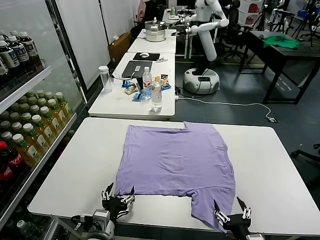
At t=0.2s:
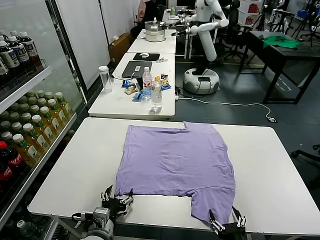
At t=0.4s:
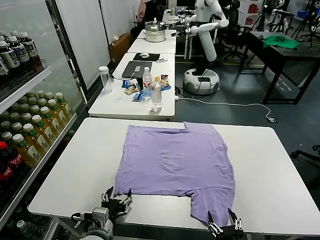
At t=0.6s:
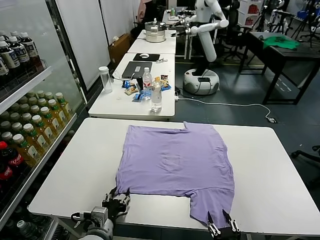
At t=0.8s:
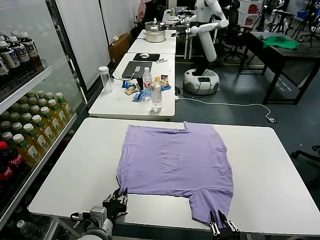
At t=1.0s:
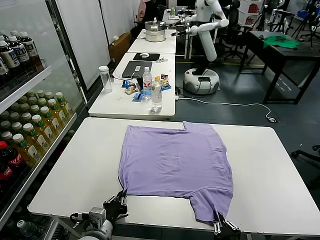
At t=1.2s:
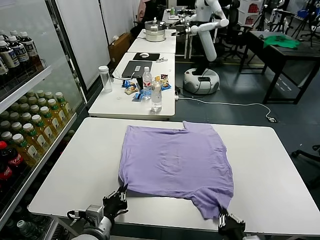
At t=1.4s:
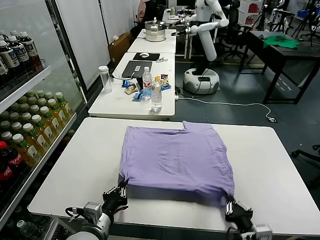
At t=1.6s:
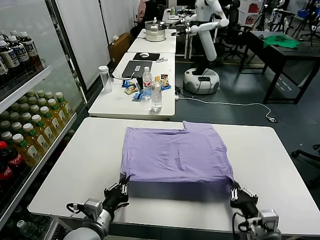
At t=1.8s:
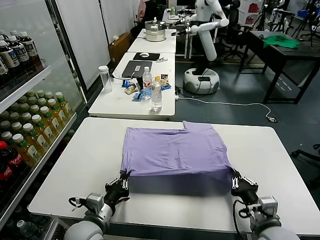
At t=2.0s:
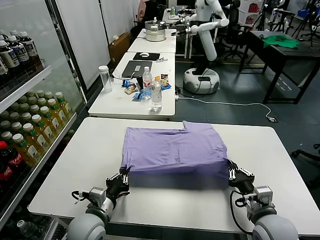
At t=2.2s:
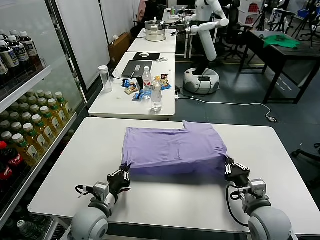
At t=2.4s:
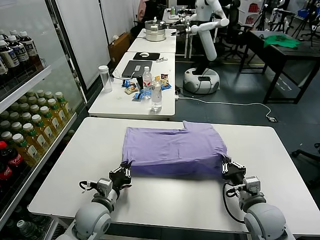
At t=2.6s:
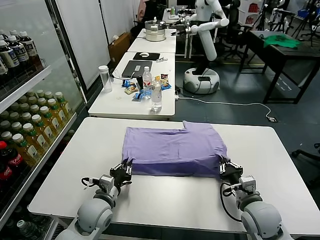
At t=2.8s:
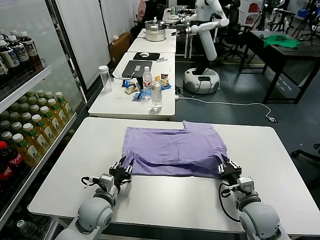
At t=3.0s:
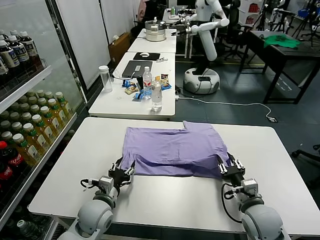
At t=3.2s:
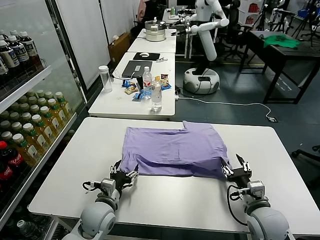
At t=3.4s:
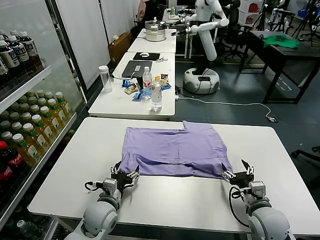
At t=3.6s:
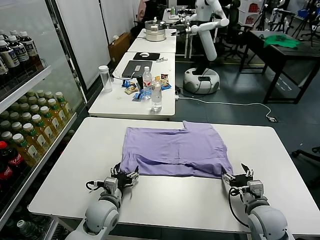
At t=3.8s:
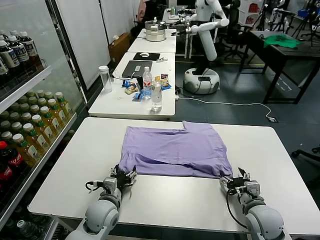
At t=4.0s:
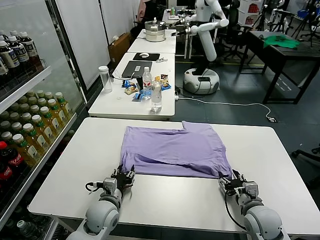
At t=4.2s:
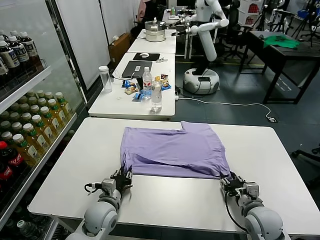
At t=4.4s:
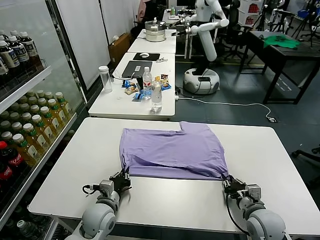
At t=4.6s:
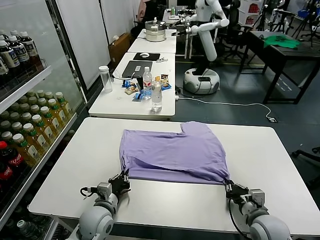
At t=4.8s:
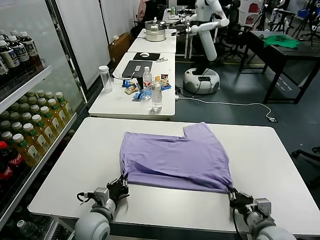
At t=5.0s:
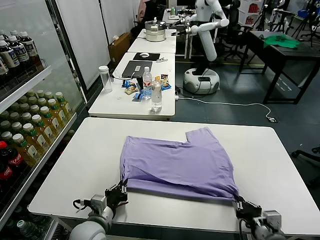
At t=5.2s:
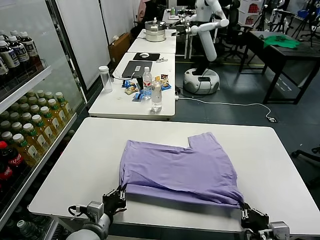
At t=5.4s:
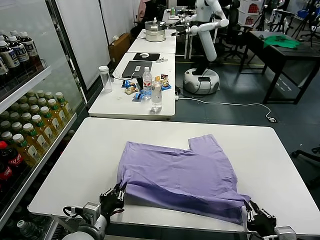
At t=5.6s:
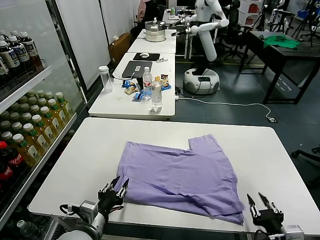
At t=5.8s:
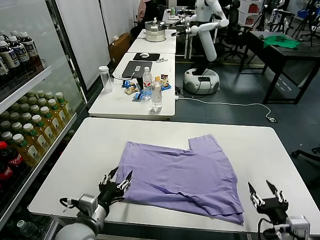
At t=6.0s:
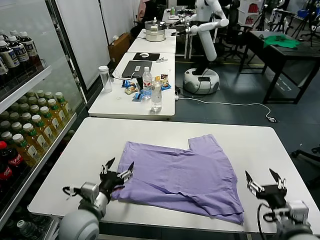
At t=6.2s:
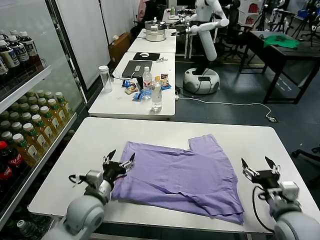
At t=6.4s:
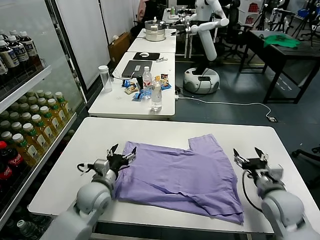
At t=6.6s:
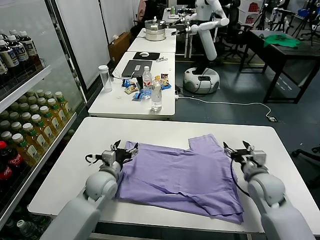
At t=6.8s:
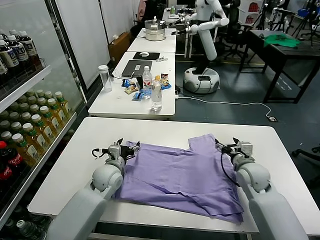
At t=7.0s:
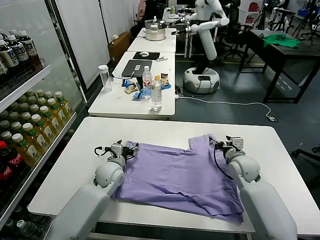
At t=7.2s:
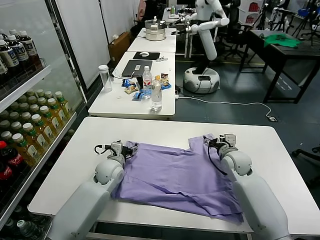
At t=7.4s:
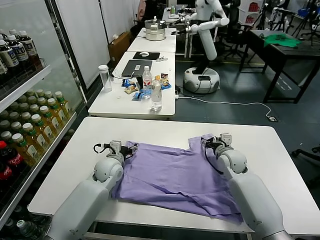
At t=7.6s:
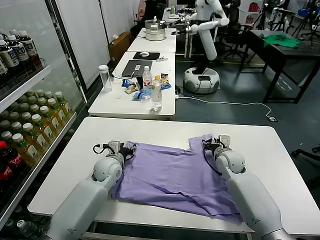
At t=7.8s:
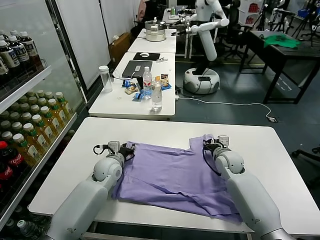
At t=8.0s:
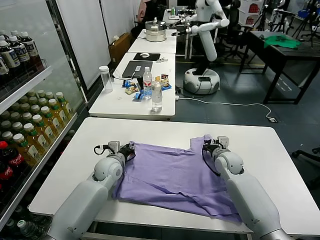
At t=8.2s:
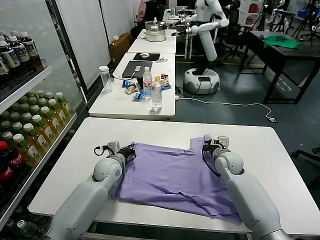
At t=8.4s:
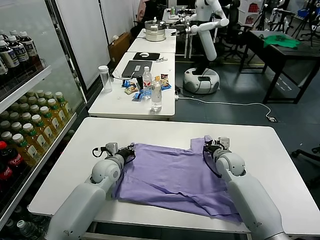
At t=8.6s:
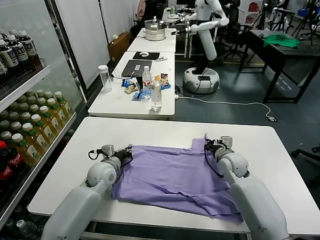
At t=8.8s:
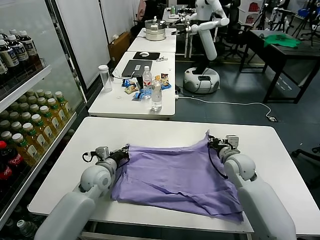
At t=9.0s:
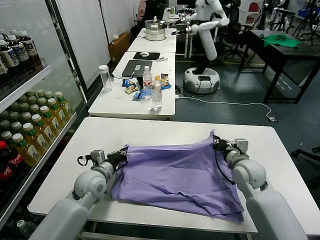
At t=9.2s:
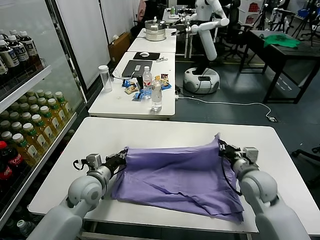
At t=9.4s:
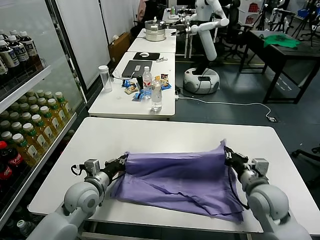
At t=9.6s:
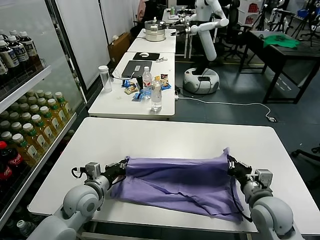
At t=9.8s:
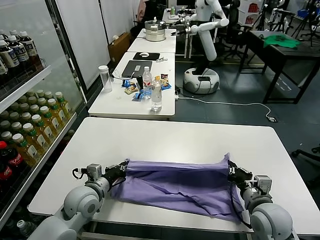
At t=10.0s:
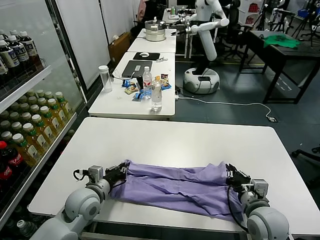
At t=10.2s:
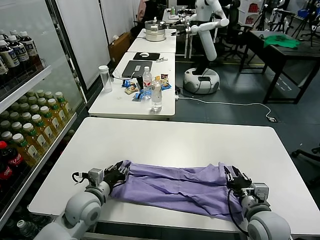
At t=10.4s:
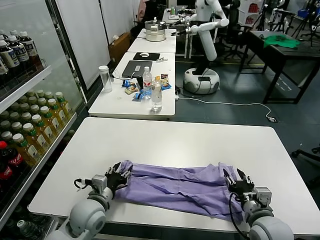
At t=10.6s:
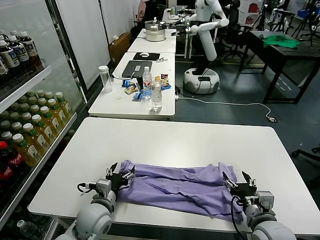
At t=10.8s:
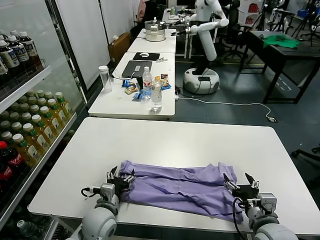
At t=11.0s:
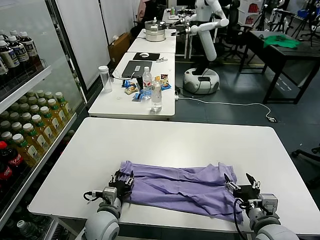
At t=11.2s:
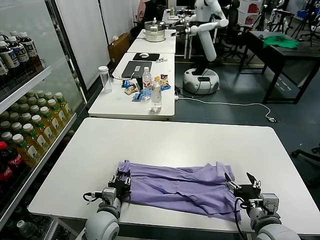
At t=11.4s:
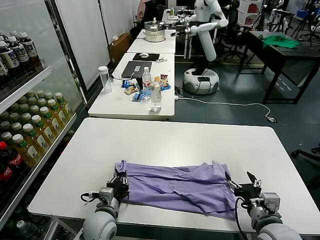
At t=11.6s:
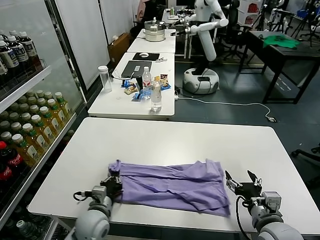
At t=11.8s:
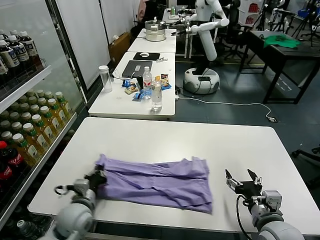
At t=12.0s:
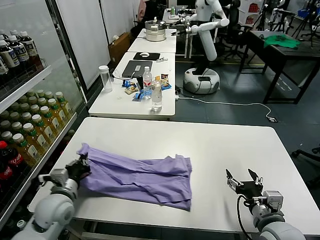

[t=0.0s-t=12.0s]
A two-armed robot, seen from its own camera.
Task of the whole recording: fold and organize the clothes.
Step, t=0.0s to t=1.0s: use both grippers simultaneously to clamp the lower edge of the clothing fabric.
Step, t=1.2s to t=3.2s: use both grippers to drag the lower edge of the fabric forward and fold it over the upper edge.
Step, t=3.4s to t=5.6s: Drag the clothes downward with both gripper.
Step, t=5.8s to t=8.2s: use both grippers simultaneously to clamp the upper edge of the clothing fabric.
Step, t=8.4s to t=10.4s: use both grippers to drag the upper edge of the fabric backward and fold it over the lower edge.
Step, t=10.6s to t=11.4s: use the left gripper to clamp the left edge of the fabric.
t=1.6s to t=3.0s: The two grippers go approximately 10 cm forward. The left gripper opens. The right gripper opens.
t=3.0s to t=4.4s: The right gripper closes up. The left gripper closes its fingers.
t=4.4s to t=6.0s: Both grippers travel together upward and backward, roughly 10 cm. The left gripper opens up. Meanwhile the right gripper opens its fingers.
t=6.0s to t=7.6s: Both grippers move forward, some 25 cm. The right gripper closes up.
t=7.6s to t=9.0s: The left gripper is displaced backward by some 5 cm, and closes up. The right gripper moves backward and upward, about 10 cm, and closes.
t=9.0s to t=10.4s: The left gripper is displaced backward by some 10 cm, and opens up. The right gripper travels backward by about 15 cm, and opens.
t=10.4s to t=12.0s: The left gripper heads to the left, covering some 10 cm, and closes up.

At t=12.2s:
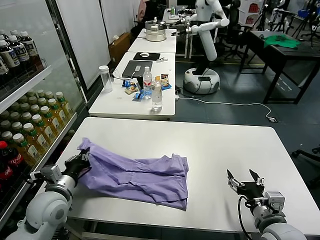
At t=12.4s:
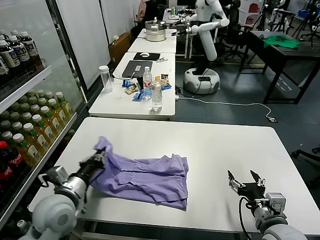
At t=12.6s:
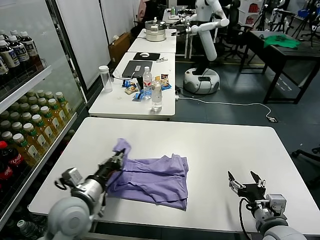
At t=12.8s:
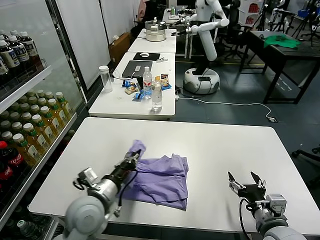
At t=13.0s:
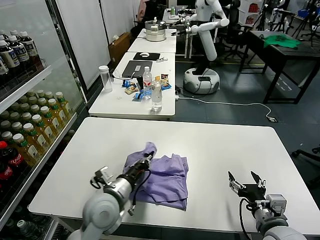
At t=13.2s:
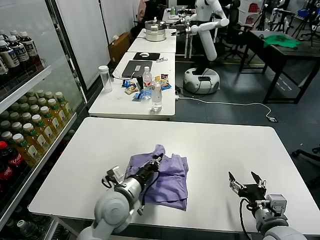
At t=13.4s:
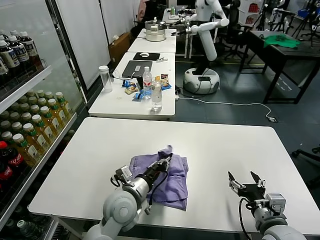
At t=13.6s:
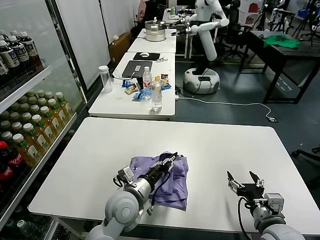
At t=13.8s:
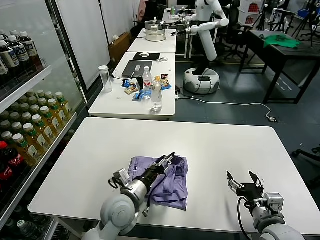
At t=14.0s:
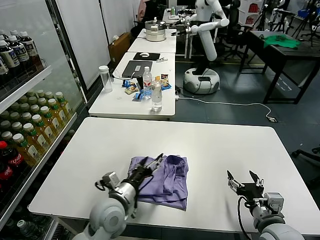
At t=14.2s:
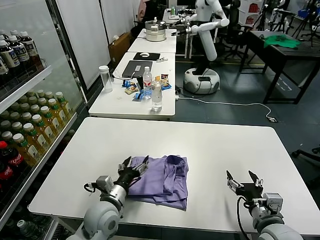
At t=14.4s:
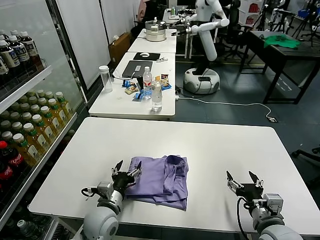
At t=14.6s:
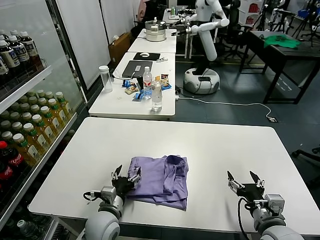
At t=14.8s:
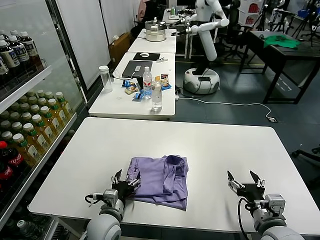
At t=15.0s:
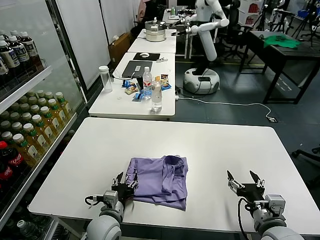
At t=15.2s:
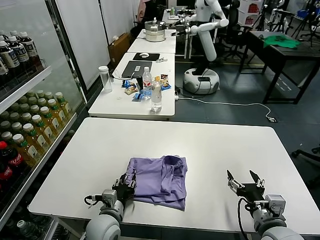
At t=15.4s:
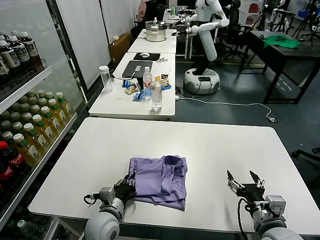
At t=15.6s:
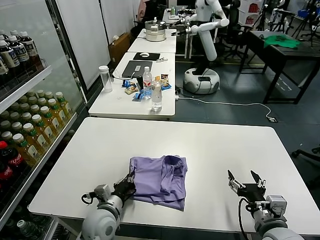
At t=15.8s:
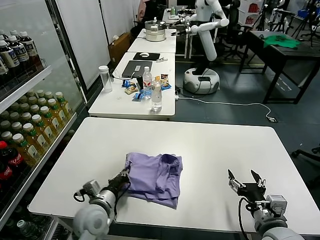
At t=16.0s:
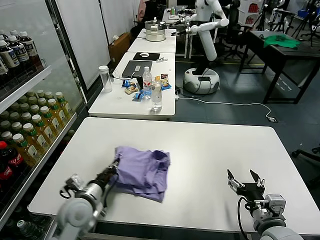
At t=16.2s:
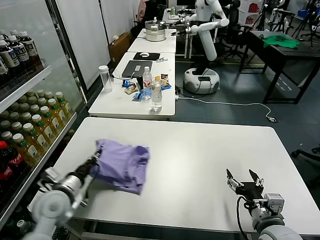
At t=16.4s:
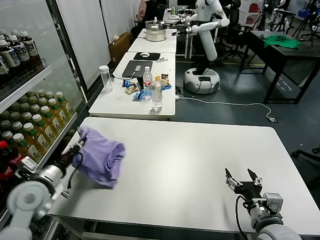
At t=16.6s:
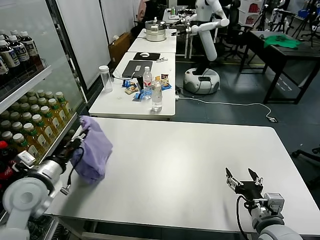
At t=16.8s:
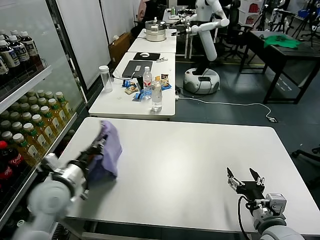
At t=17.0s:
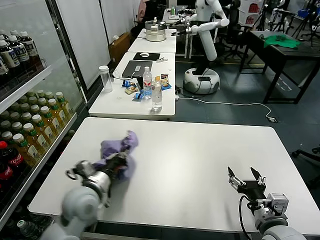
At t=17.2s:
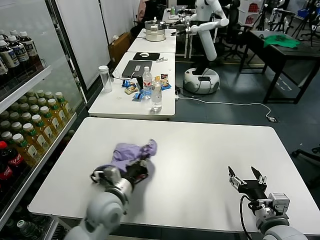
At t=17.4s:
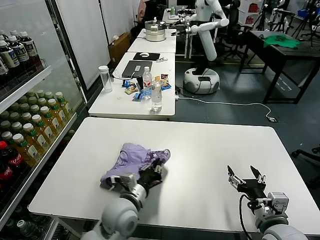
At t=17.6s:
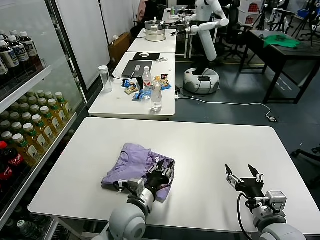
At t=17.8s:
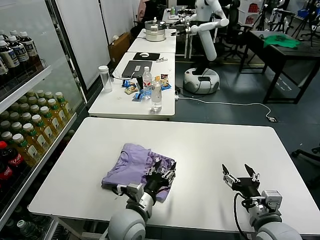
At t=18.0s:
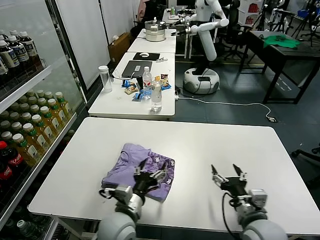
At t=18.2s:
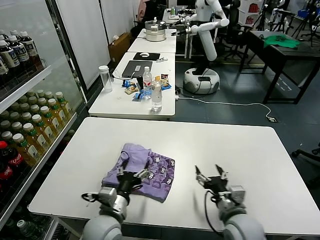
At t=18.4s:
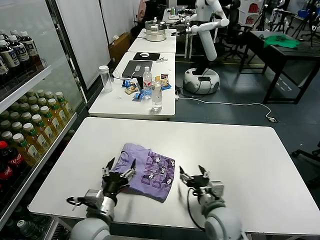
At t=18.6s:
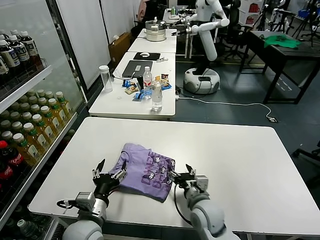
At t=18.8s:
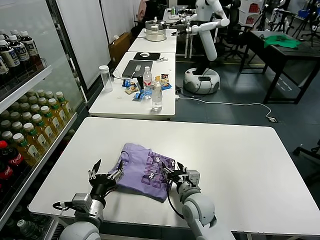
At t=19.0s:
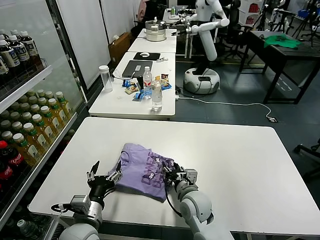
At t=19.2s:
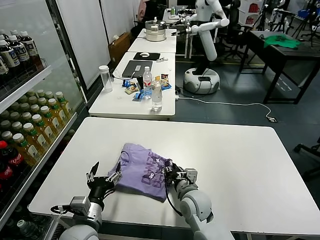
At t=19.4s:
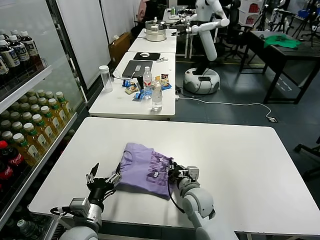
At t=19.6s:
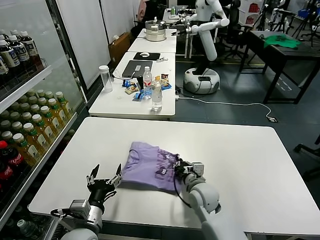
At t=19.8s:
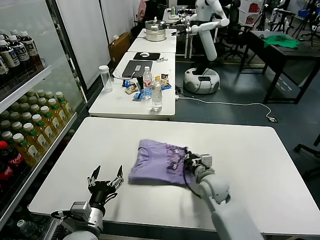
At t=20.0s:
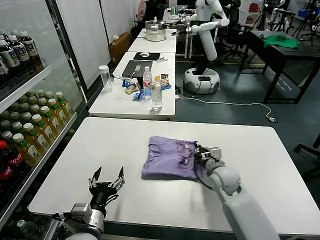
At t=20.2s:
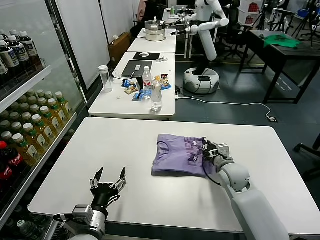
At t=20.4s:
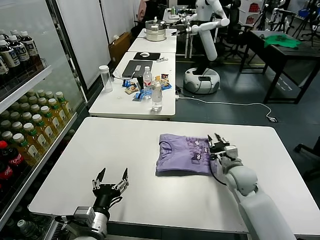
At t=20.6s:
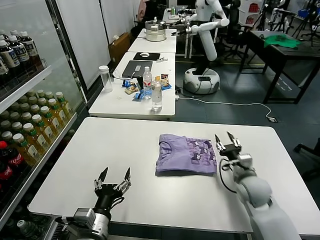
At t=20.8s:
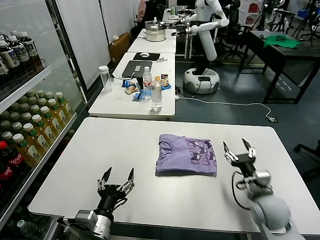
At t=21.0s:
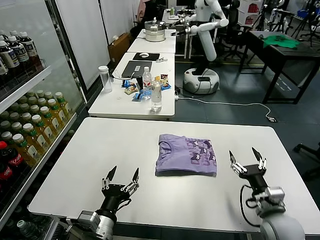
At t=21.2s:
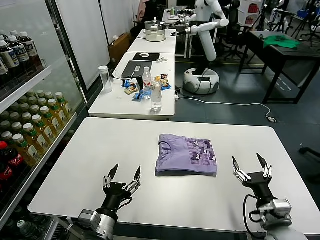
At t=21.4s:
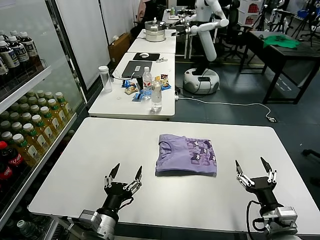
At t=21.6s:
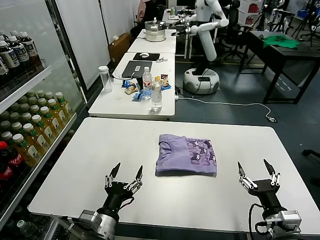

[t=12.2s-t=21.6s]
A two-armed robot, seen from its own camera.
Task of the whole recording: fold and organize the clothes.
Step, t=12.2s to t=14.0s: use the left gripper to drag the left edge of the fabric to the left and folds it over the right edge.
Step, t=14.2s to t=17.8s: Flip the folded clothes over with left gripper.
Step, t=18.0s to t=20.6s: Drag the clothes to the center of the table.
t=12.2s to t=13.8s: The left gripper moves to the right, approximately 20 cm, and opens up.
t=13.8s to t=15.4s: The left gripper moves downward and to the left, about 10 cm, and closes.
t=15.4s to t=17.0s: The left gripper shifts about 10 cm upward, and moves some 15 cm to the left and comes back.
t=17.0s to t=18.4s: The right gripper goes roughly 15 cm to the left, forward and downward. The left gripper travels backward and to the right by approximately 10 cm, and opens.
t=18.4s to t=20.0s: The right gripper shifts approximately 15 cm forward, and closes.
t=20.0s to t=21.6s: The right gripper travels backward and to the right by approximately 25 cm, and opens up.
